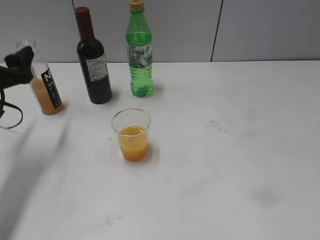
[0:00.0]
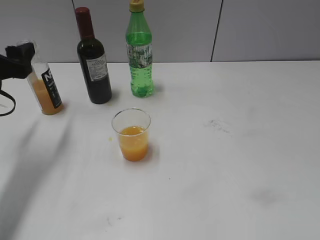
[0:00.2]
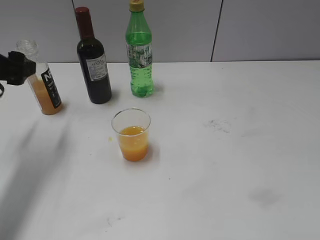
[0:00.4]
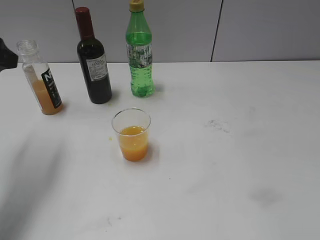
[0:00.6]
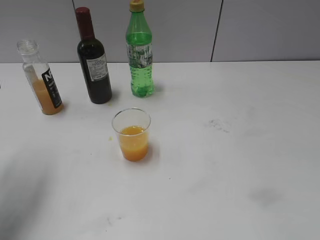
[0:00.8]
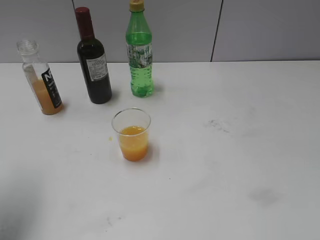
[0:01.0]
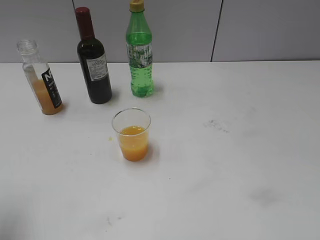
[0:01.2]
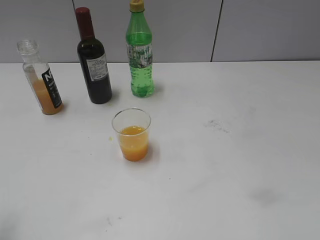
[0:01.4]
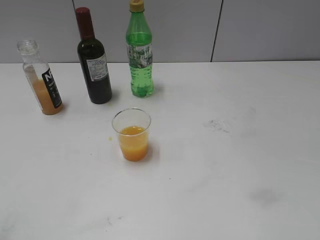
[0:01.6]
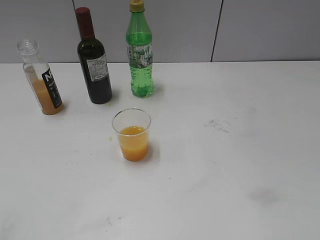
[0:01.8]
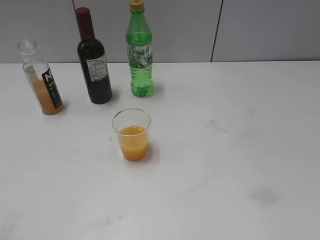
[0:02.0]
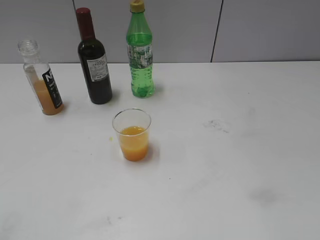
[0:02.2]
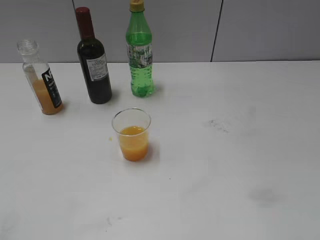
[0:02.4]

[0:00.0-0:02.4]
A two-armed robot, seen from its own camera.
0:00.0 to 0:01.2: The left gripper heads backward and upward, covering approximately 15 cm.
